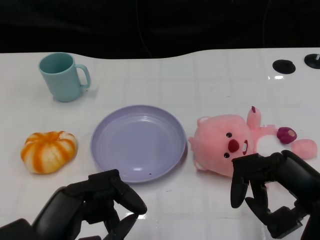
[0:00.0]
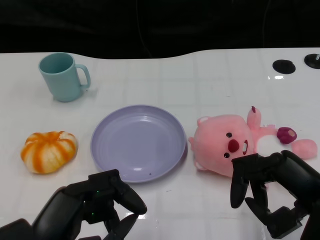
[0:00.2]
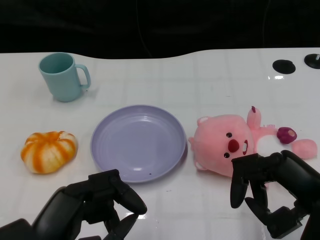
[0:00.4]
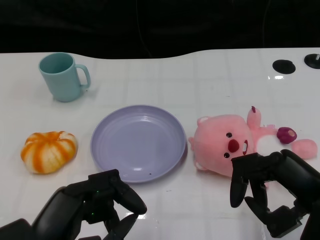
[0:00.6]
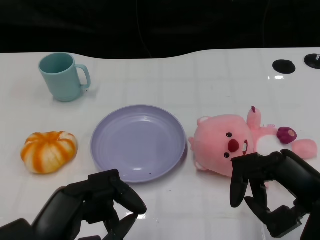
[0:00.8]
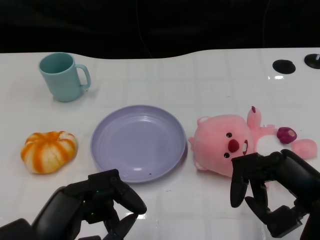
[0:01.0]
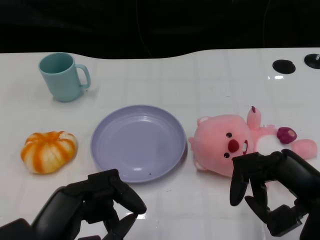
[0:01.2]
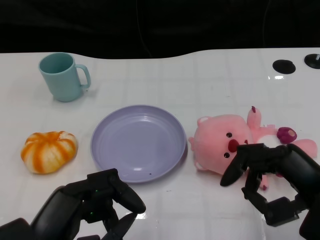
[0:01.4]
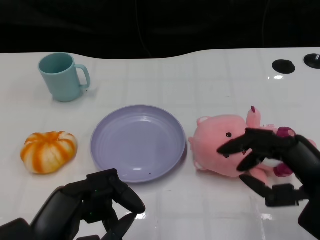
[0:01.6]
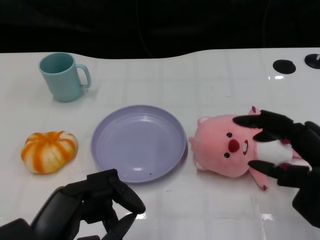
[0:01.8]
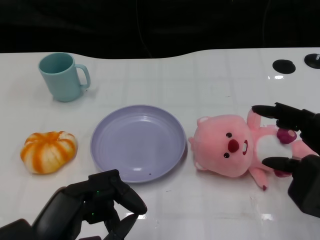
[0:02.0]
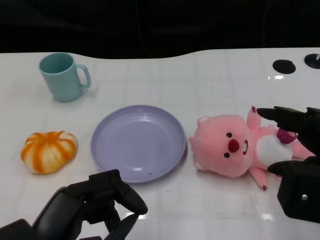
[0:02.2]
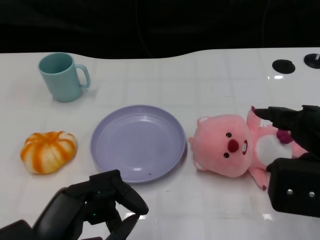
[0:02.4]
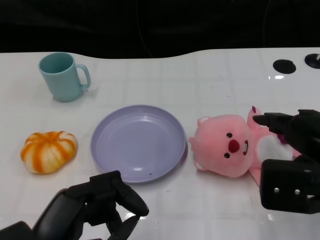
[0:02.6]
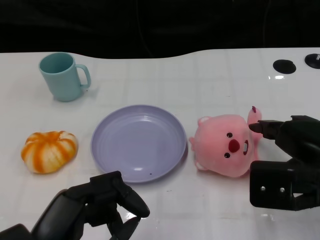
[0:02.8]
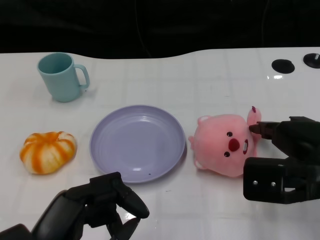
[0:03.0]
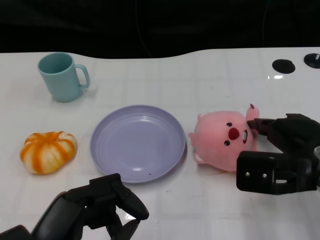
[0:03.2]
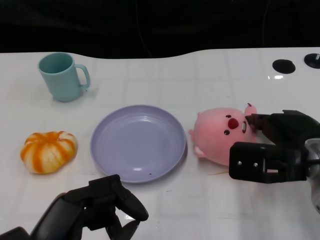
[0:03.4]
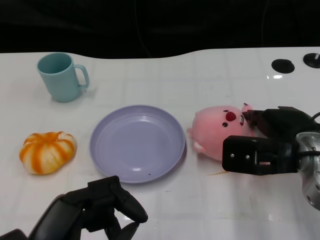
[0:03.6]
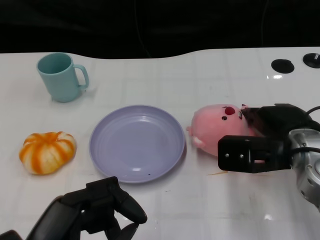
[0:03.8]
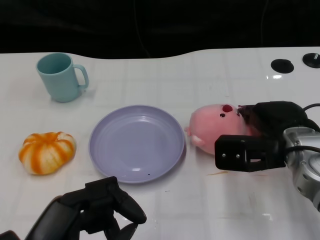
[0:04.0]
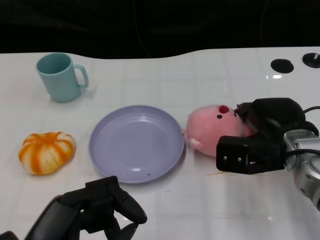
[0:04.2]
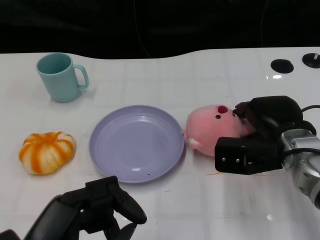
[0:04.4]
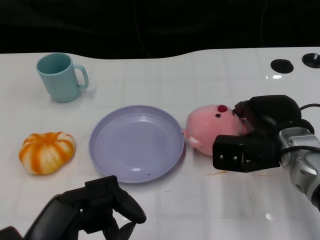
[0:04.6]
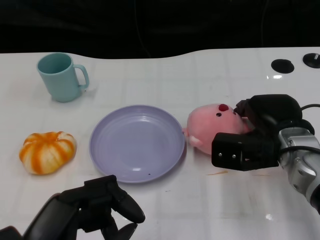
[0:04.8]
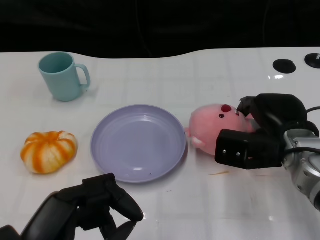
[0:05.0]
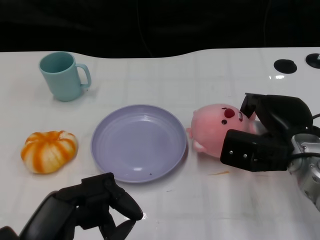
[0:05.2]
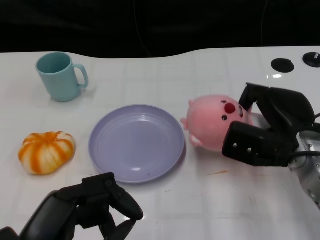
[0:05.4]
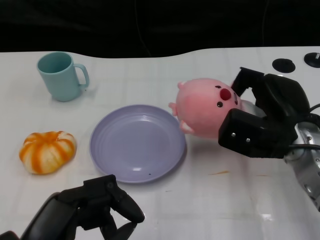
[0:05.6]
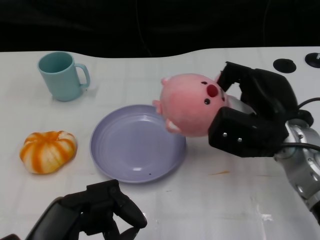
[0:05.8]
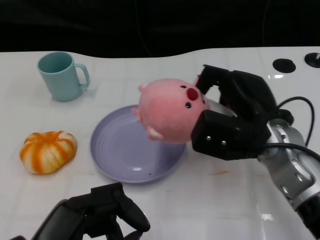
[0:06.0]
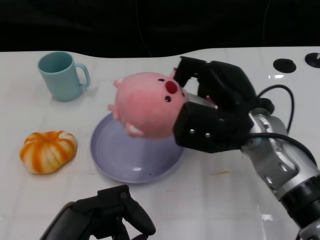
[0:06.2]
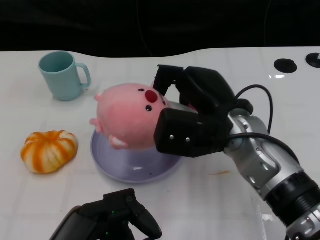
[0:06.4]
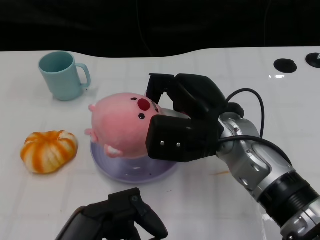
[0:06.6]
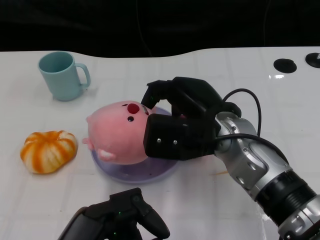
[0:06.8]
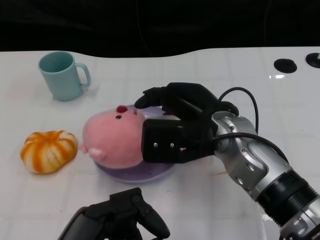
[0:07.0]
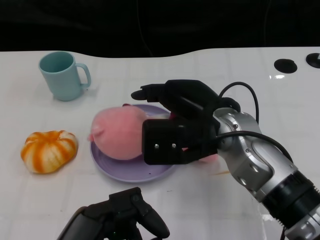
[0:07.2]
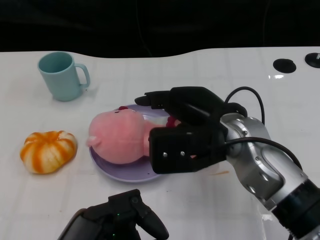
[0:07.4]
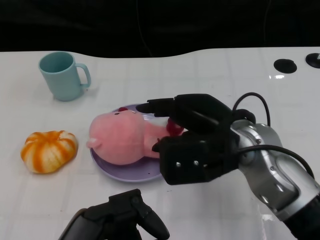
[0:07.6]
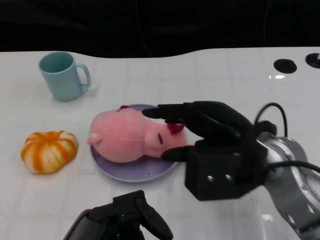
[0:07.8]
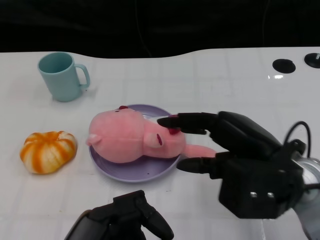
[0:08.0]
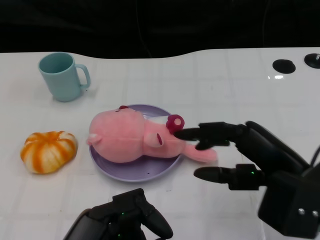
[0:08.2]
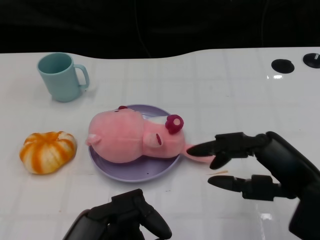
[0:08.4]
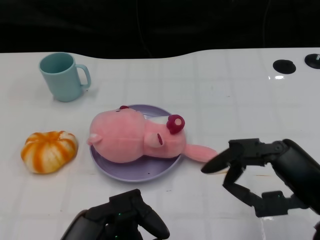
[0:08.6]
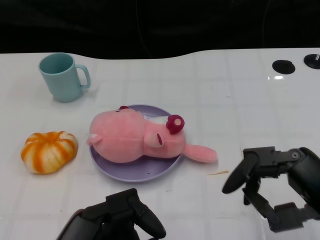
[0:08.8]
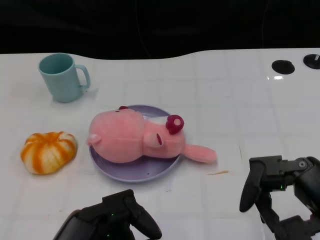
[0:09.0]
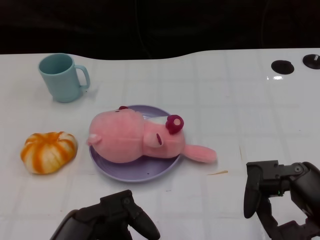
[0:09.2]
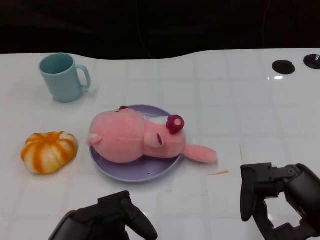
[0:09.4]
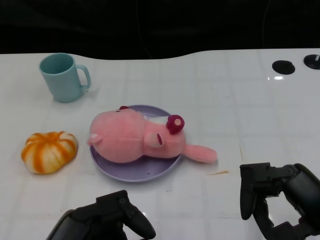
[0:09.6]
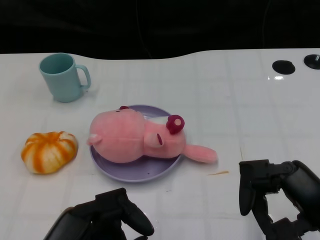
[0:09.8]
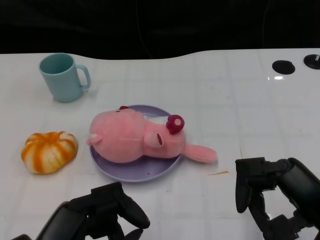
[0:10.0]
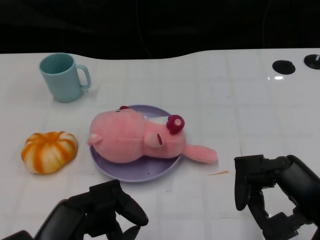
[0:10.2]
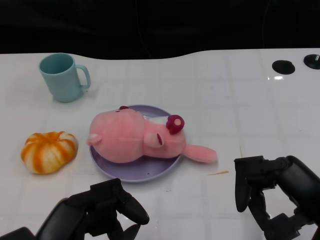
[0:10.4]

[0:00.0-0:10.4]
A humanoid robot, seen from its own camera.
Task of the whole recording: Pick up the doll on the other side of the plate and place it into the plate.
Step, 0:01.2 to 0:05.8: Grasp the pink doll with the right gripper.
Step, 0:06.0 to 0:08.0: Place the pink doll into the plate with the right gripper.
0:01.4 to 0:03.0: The right hand is displaced forward by about 5 cm.
0:03.0 to 0:04.4: The right hand shifts some 10 cm forward and downward.
0:04.4 to 0:06.0: The right hand ends up approximately 5 cm from where it was.
0:06.0 to 0:07.4: The right hand travels to the left by about 5 cm.
0:07.4 to 0:09.0: The right hand heads to the right and backward, covering approximately 20 cm.
0:09.0 to 0:10.4: The hands make only small movements.

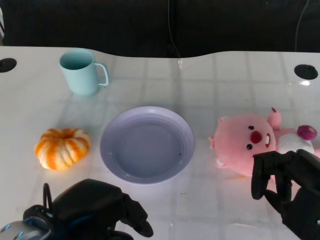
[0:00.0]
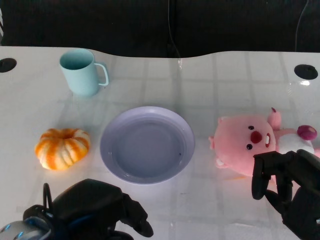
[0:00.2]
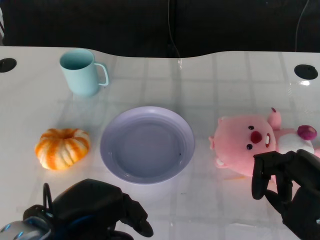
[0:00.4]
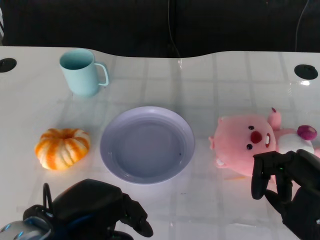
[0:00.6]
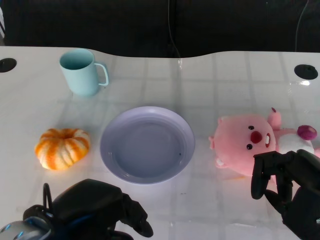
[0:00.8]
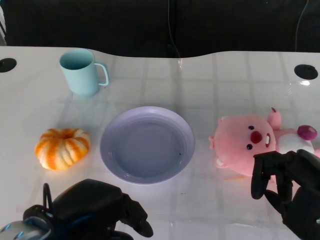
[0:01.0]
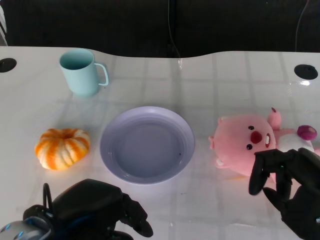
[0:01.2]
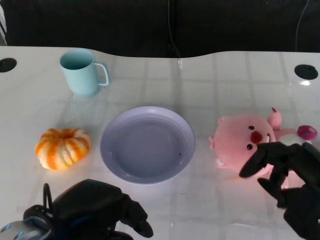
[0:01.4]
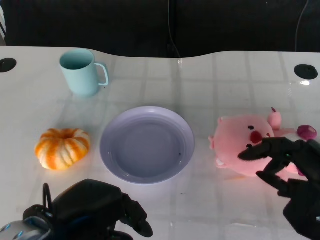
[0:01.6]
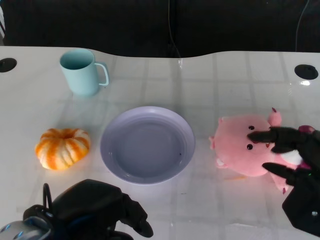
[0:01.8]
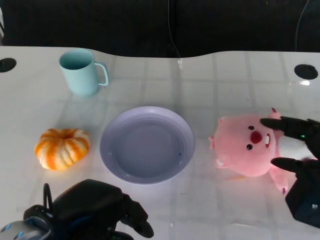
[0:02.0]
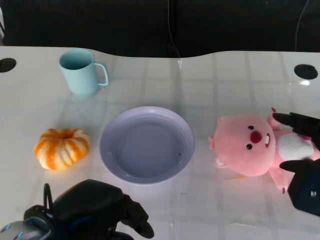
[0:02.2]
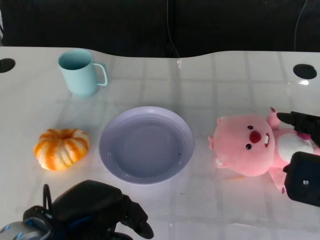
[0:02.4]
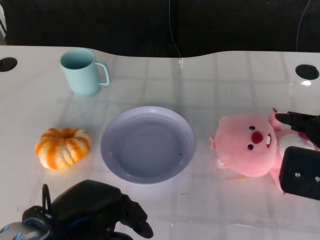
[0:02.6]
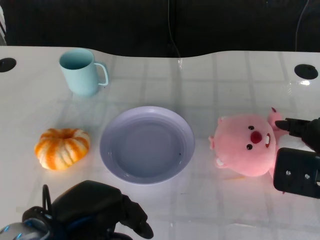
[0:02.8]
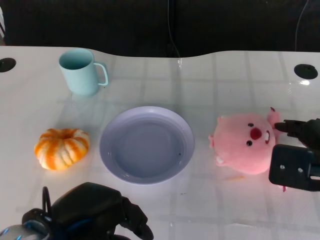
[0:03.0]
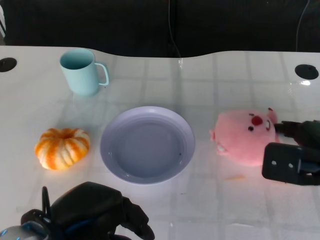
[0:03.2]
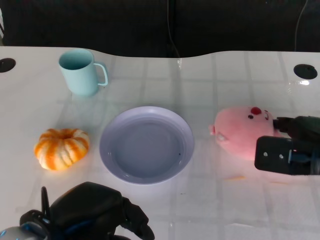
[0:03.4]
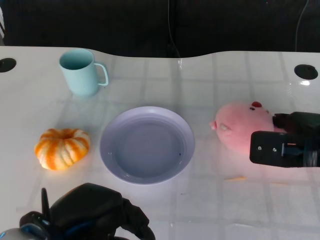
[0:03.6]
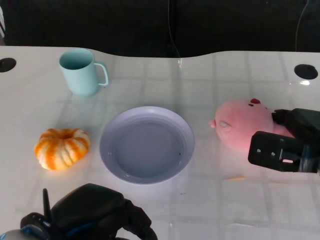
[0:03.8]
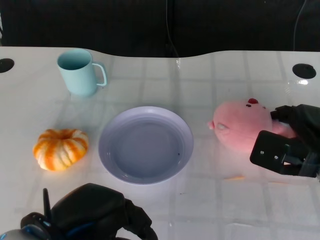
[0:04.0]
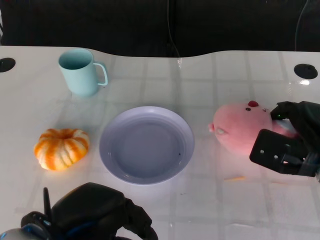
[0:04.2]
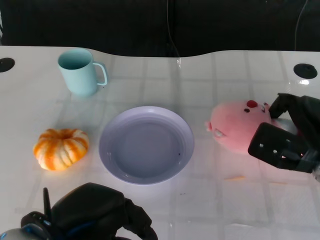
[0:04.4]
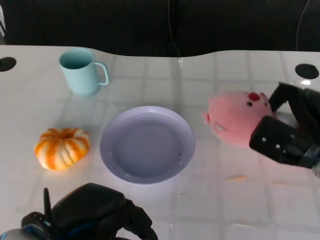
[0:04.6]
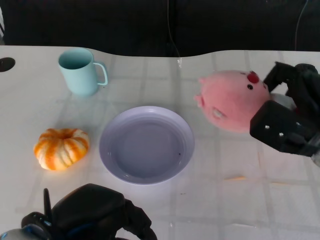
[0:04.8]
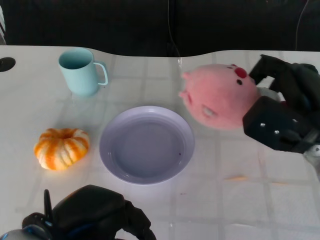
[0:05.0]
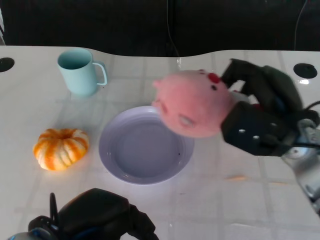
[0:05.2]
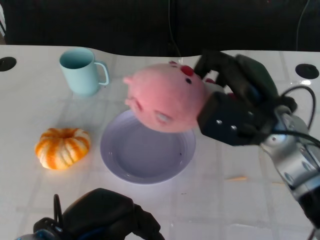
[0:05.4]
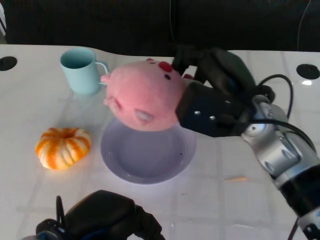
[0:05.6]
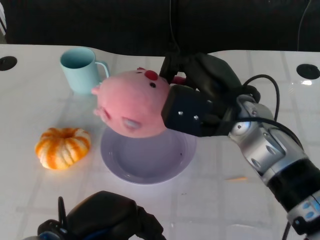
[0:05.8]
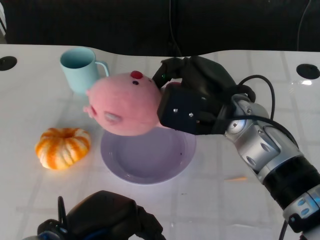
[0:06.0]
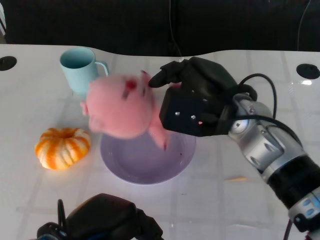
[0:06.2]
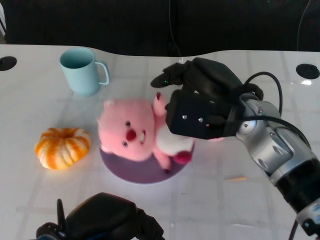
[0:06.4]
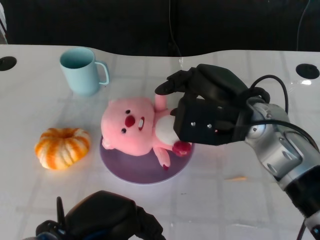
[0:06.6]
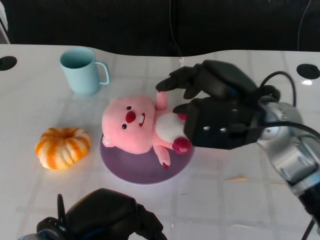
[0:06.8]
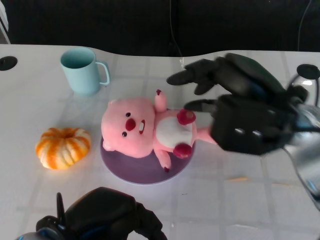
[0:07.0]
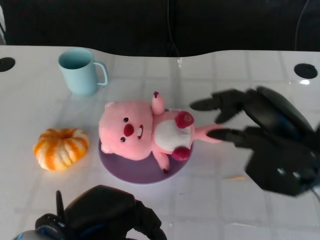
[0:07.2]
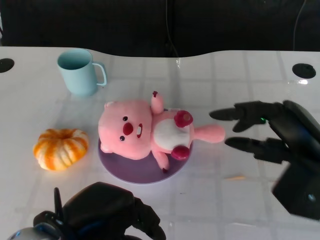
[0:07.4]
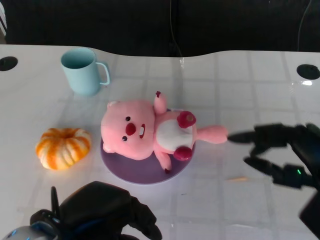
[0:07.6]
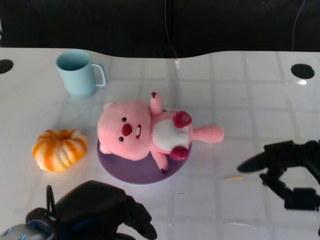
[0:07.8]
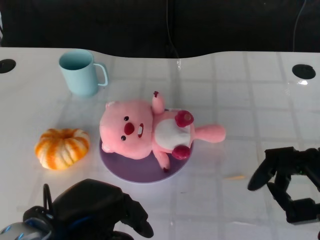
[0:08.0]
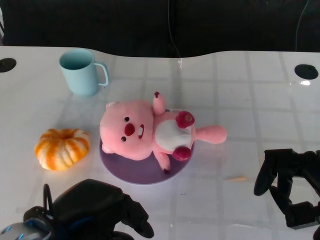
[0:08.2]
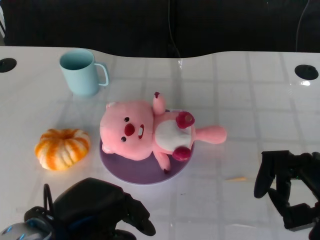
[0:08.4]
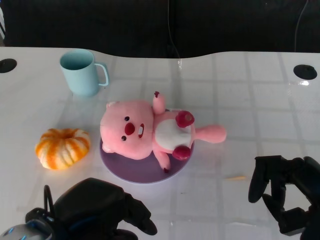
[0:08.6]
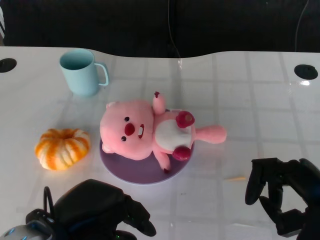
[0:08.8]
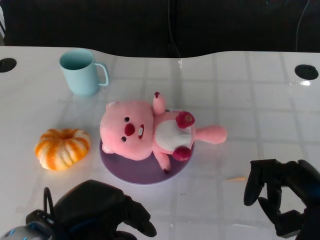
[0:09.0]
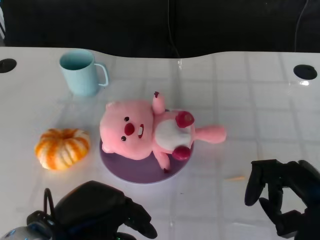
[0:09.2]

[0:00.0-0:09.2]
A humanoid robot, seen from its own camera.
Task of the whole recording: Pick up the doll on the other side of the plate and place it into the plate.
Step, 0:01.2 to 0:04.8: Grasp the pink doll with the right gripper.
Step, 0:05.2 to 0:07.2: Place the pink doll into the plate with the right gripper.
0:01.6 to 0:03.0: The right hand moves forward, roughly 5 cm.
0:03.0 to 0:04.6: The right hand is displaced forward and downward by some 5 cm.
0:04.6 to 0:06.2: The right hand moves to the left and upward, some 15 cm.
0:06.2 to 0:07.6: The right hand heads to the right and backward, covering roughly 20 cm.
0:07.6 to 0:09.2: The hands move only a little.

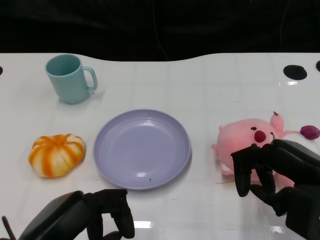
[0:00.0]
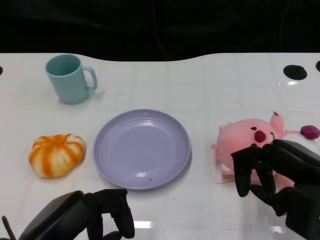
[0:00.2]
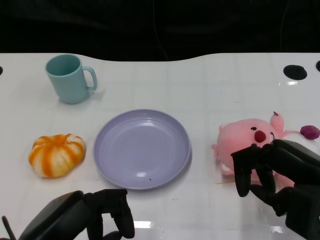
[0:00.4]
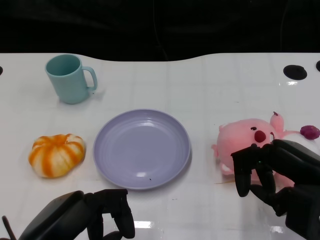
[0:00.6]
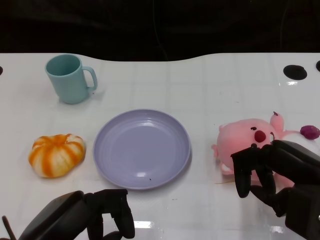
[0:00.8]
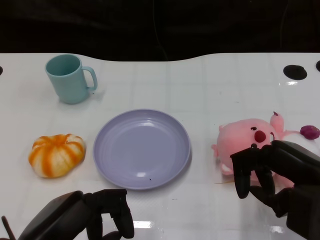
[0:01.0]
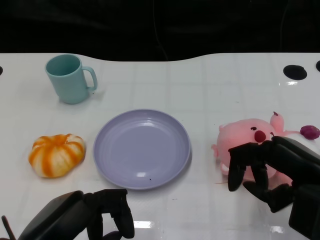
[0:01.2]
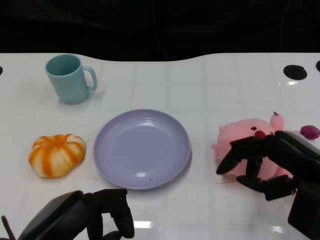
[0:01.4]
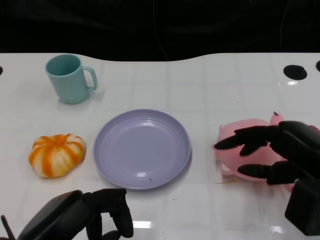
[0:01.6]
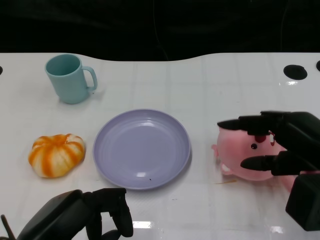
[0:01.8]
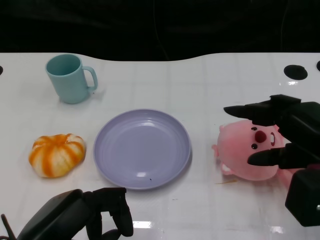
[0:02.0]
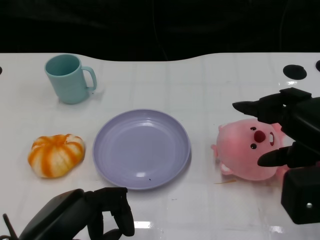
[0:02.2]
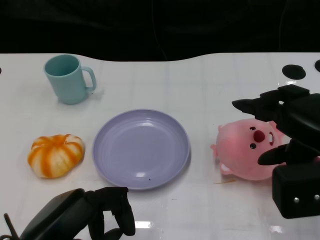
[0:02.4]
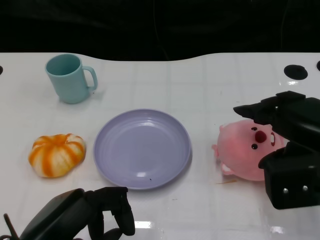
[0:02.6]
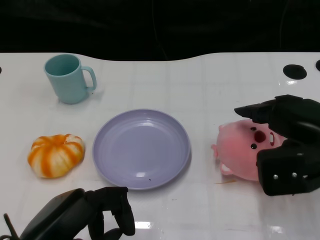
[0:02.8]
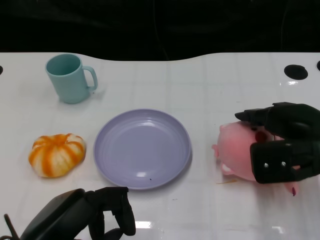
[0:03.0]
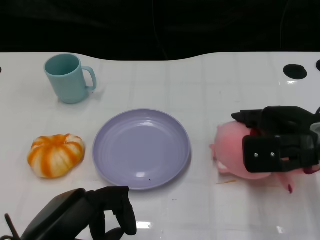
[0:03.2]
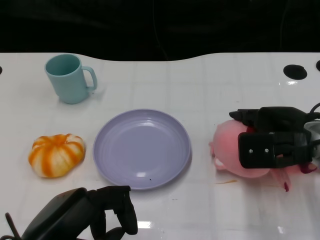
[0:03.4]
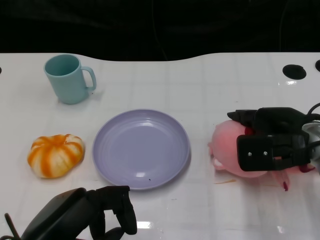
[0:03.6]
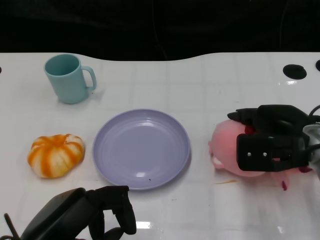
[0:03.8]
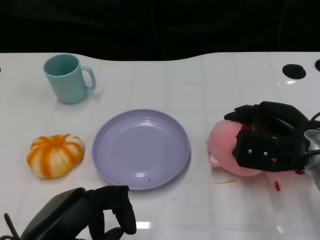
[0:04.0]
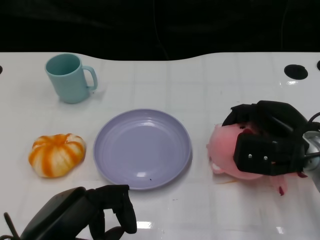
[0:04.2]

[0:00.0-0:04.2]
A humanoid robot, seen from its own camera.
Task of the whole recording: Pick up the doll on the other side of the plate and place it into the plate.
0:01.4 to 0:02.8: The right hand ends up some 5 cm from where it was.
0:02.8 to 0:04.2: The right hand goes about 5 cm downward.
